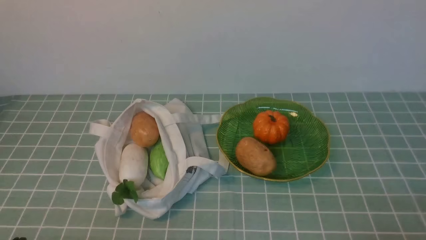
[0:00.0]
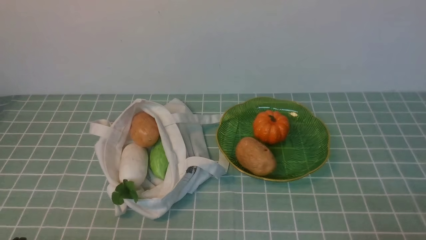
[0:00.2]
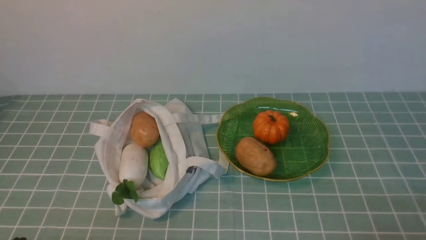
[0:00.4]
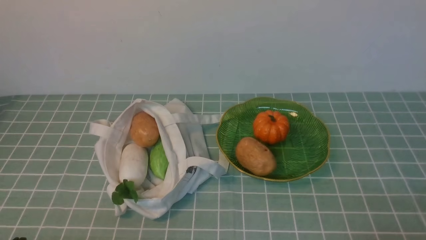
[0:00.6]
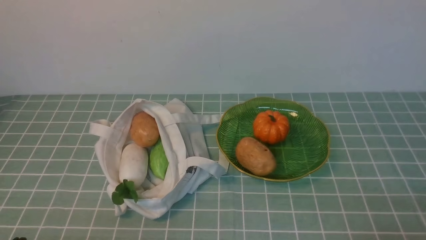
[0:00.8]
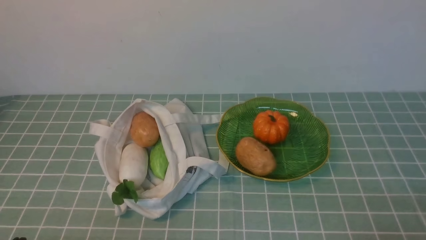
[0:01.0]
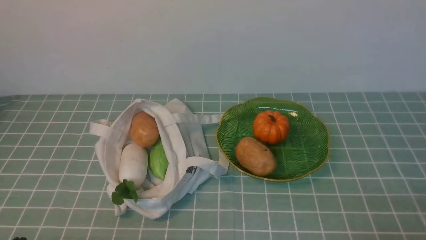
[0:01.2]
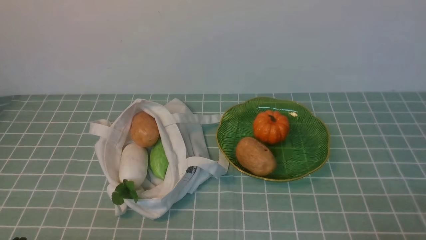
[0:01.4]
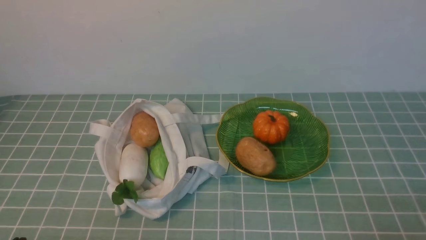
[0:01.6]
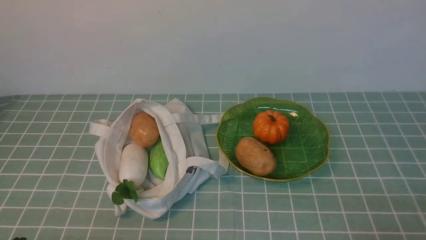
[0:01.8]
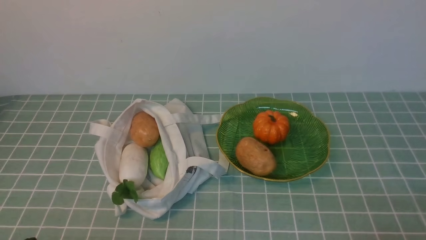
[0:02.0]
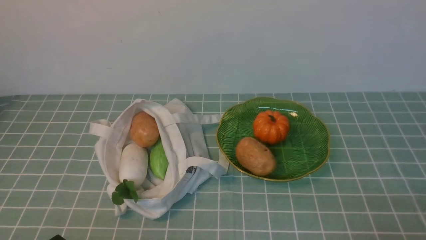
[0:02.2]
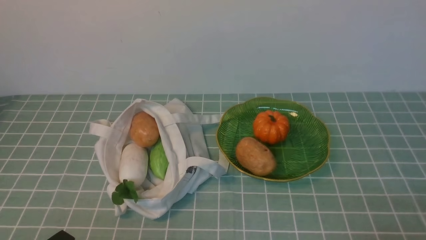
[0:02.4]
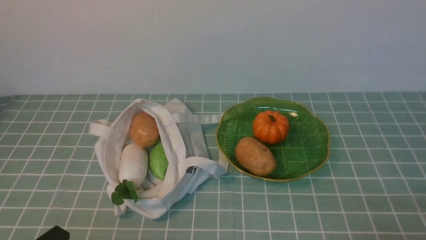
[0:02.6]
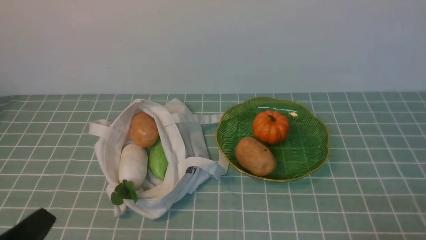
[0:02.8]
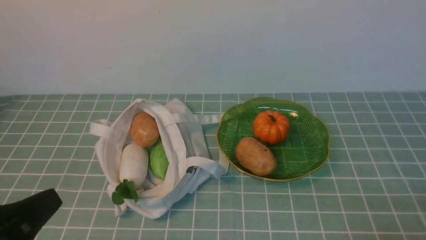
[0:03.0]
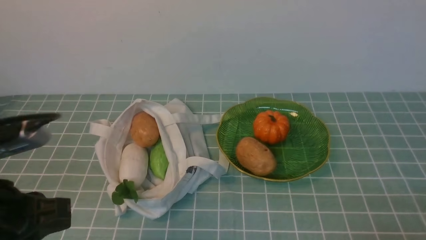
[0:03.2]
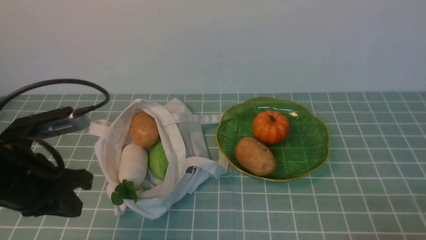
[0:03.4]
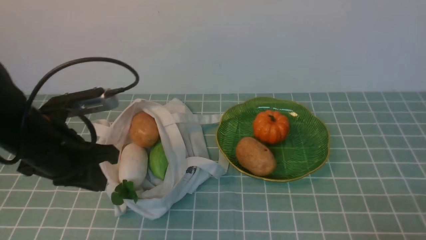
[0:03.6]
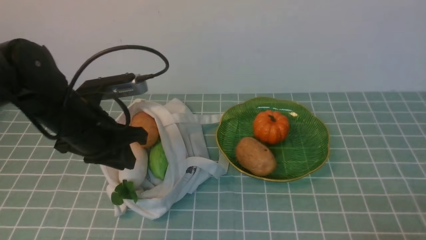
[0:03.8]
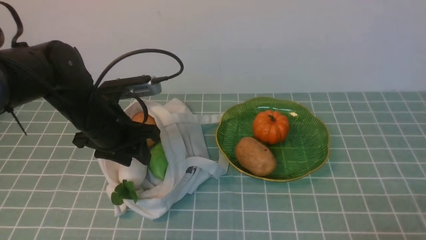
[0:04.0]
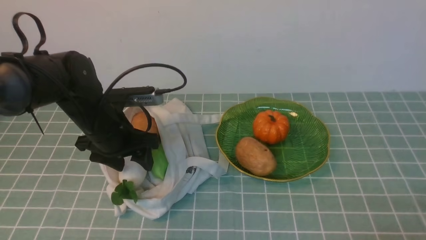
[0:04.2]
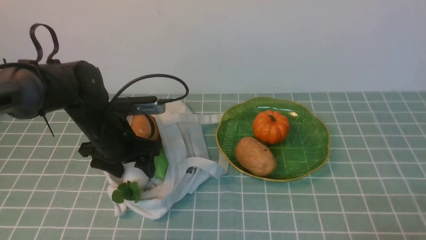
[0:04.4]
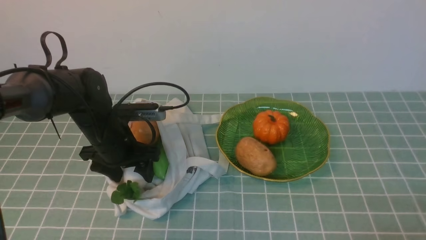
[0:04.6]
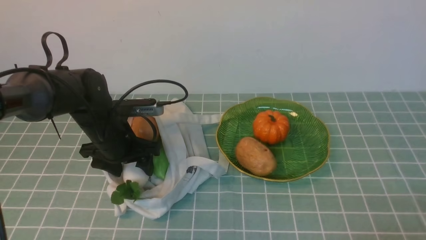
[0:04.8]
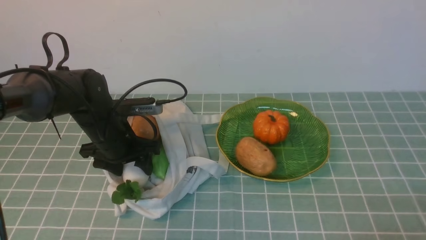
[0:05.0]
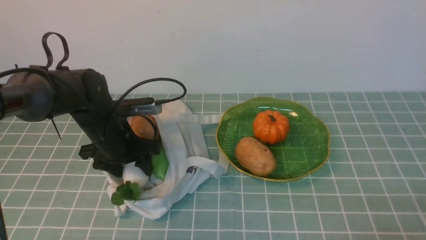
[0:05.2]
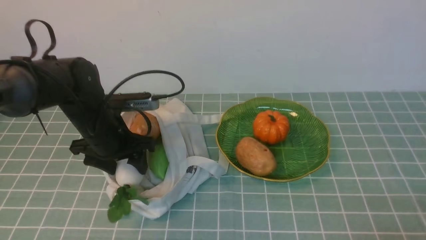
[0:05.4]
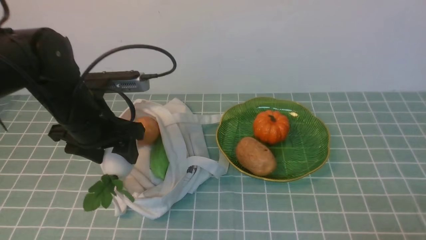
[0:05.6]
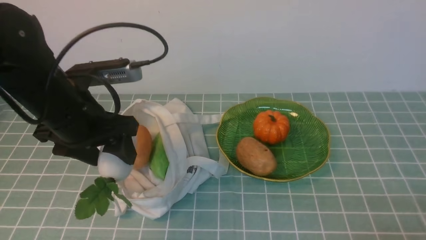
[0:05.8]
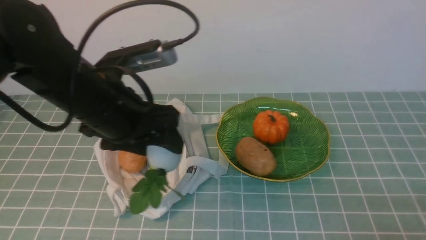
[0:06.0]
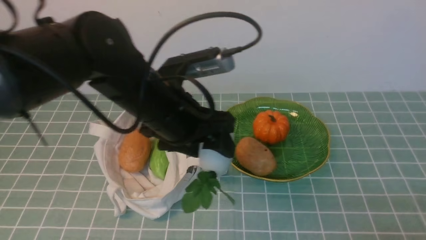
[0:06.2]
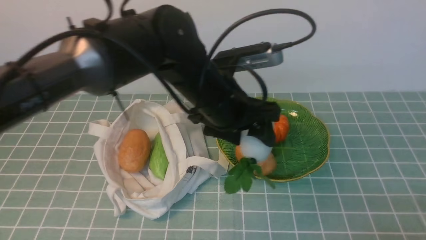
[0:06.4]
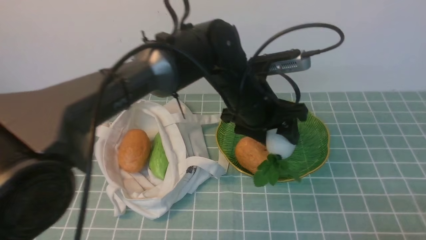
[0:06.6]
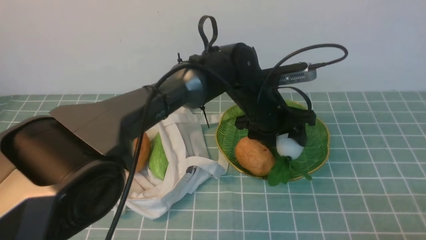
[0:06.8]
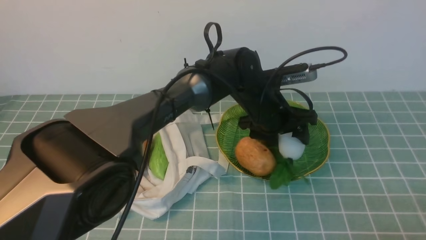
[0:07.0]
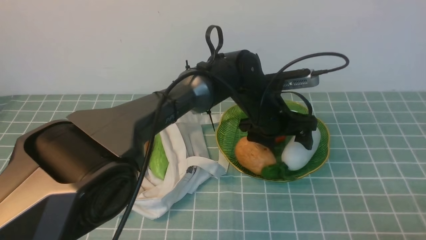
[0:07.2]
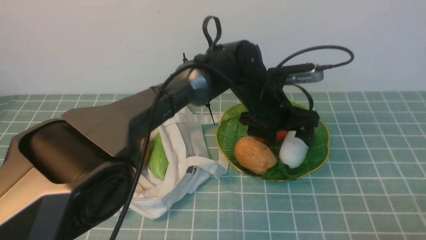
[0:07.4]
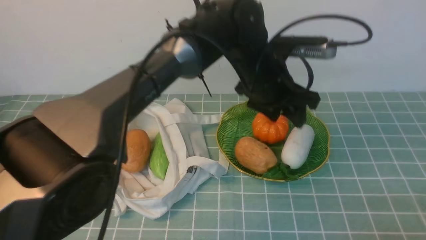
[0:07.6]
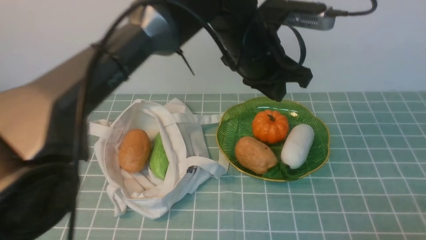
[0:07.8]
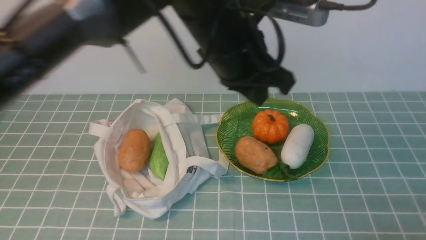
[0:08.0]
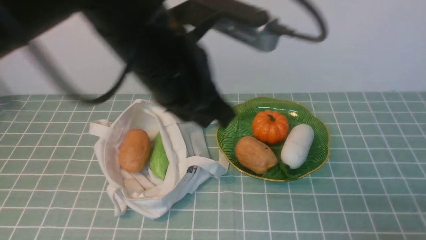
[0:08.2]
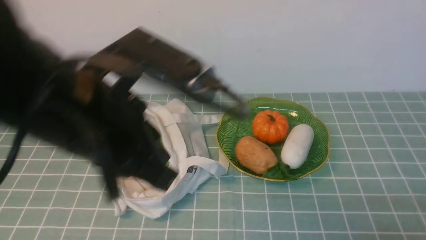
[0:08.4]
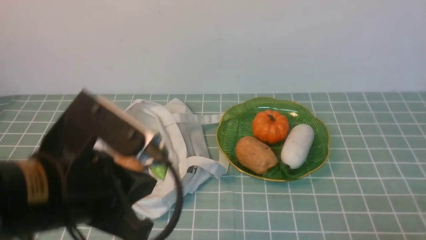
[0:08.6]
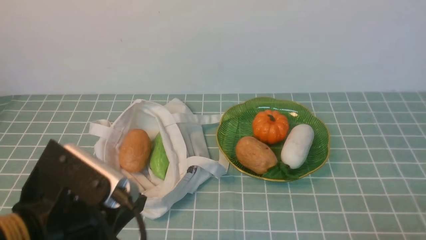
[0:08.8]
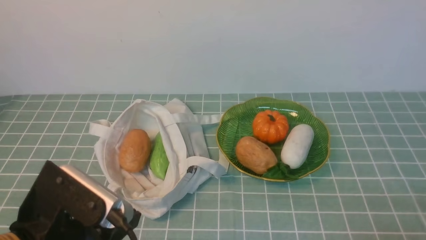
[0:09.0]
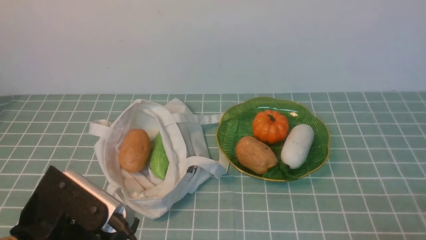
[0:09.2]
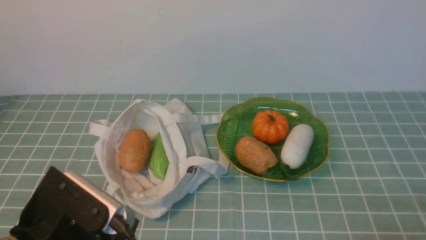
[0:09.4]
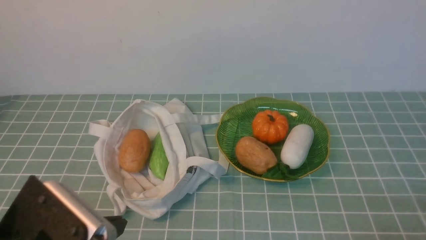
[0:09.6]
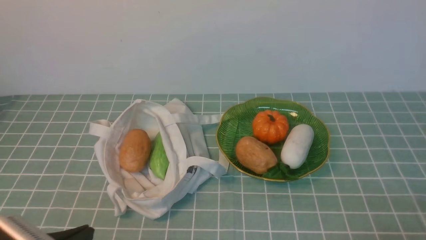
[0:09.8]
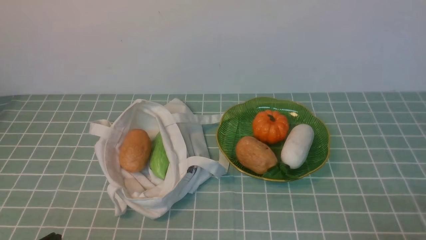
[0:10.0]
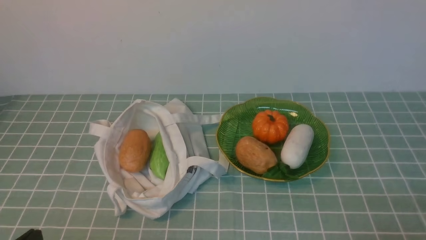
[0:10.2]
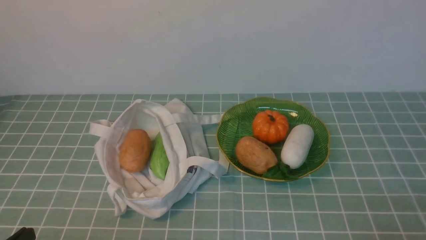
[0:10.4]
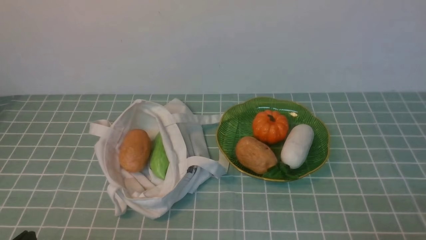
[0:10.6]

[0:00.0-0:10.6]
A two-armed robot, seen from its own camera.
Task of the whole recording: take vegetables from cloth bag on blue coffee tablecloth place on plate.
Step, 0:00.0 to 0:04.8: Grasp the radish with left gripper.
Step, 0:05.0 to 0:07.8: Place the radish on the plate with left gripper.
0:00.0 to 0:01.6: Neither gripper changes place.
0:01.6 to 0:03.0: The left gripper goes approximately 10 cm upward.
0:03.0 to 0:04.6: The left gripper shifts roughly 25 cm forward, and opens.
0:04.6 to 0:06.0: The left gripper goes about 15 cm upward, backward and to the right.
0:06.0 to 0:07.6: The left gripper goes about 20 cm to the right and forward.
0:07.6 to 0:09.0: The left gripper moves backward and to the left, some 35 cm, and closes.
0:09.0 to 0:10.6: The left gripper shifts approximately 15 cm to the left, downward and backward.

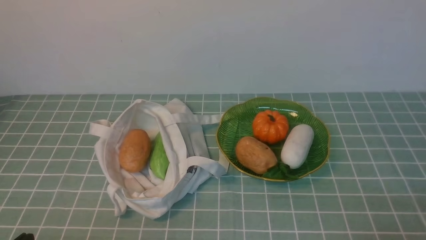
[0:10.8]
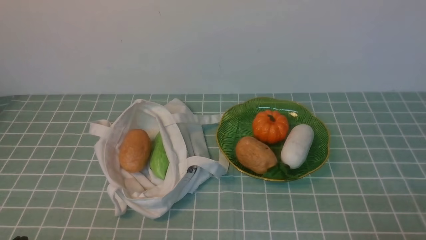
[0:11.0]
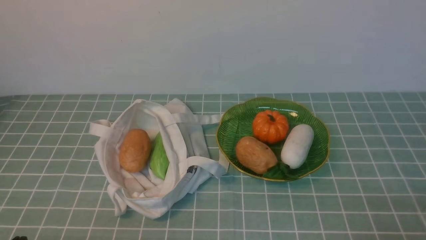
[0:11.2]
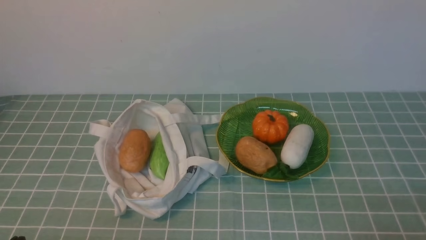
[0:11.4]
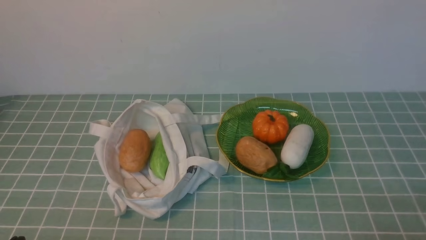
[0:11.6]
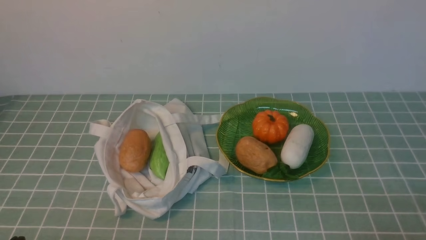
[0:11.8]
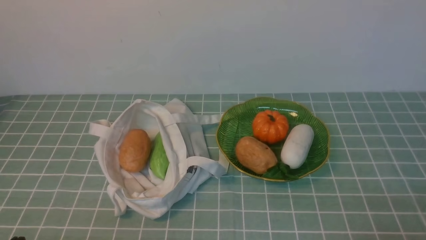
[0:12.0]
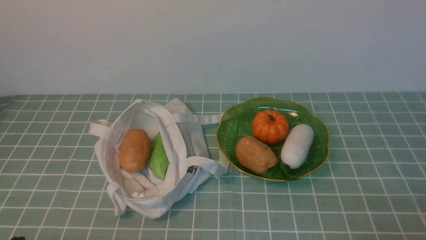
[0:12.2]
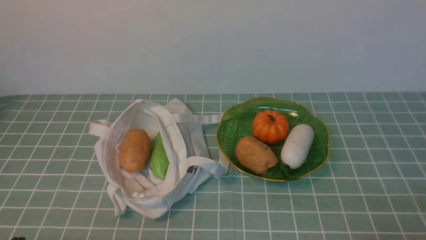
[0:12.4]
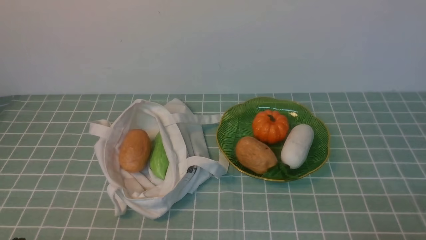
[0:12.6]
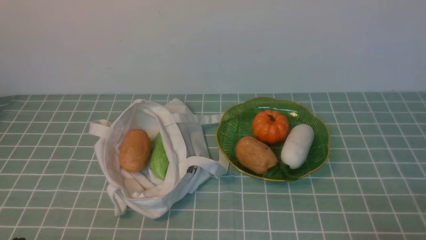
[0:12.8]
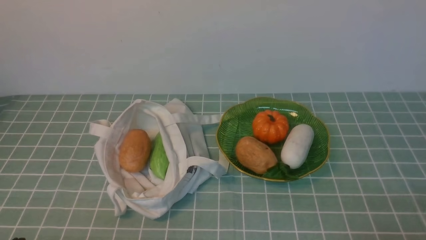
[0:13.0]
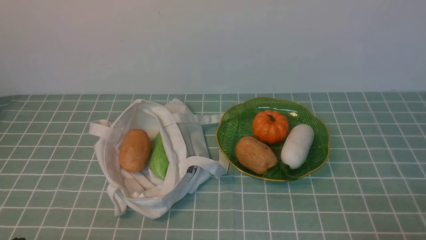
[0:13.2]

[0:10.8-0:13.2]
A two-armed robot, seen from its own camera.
Task of the whole recording: take vegetables from cloth bag on blue coffee tablecloth place on plate.
0:10.8 to 0:13.2: The two grippers keep their place.

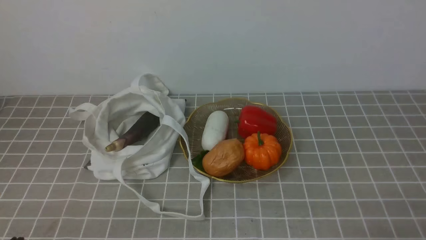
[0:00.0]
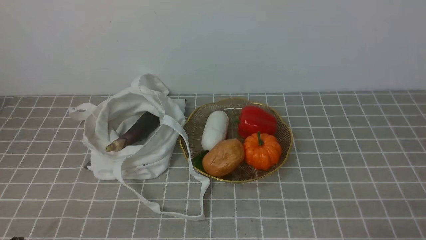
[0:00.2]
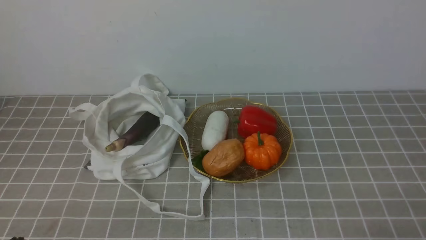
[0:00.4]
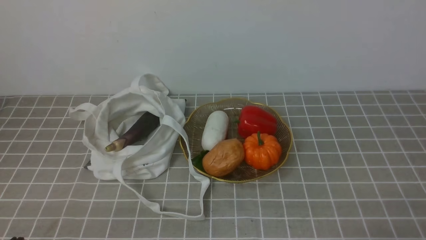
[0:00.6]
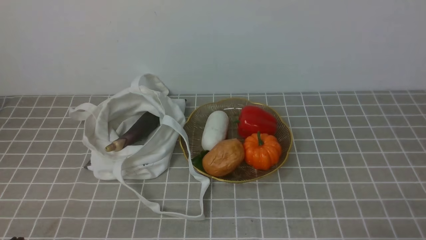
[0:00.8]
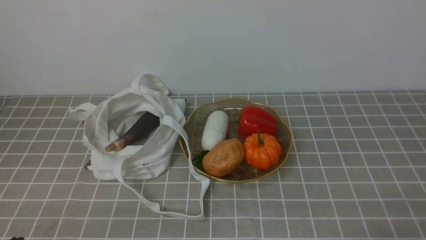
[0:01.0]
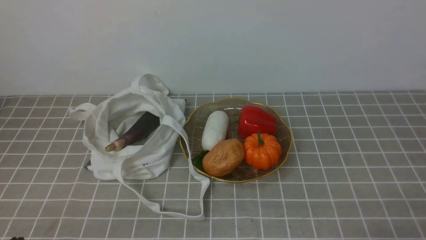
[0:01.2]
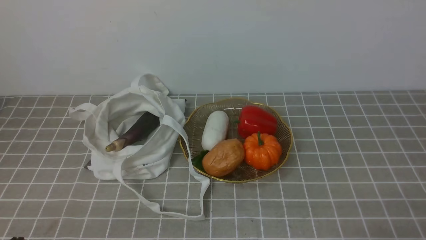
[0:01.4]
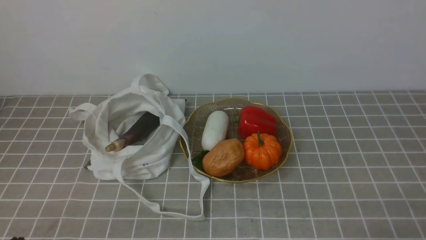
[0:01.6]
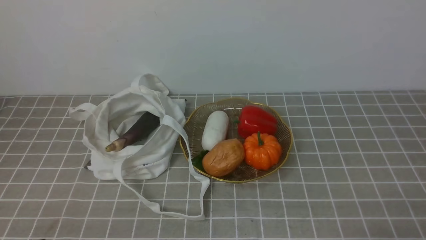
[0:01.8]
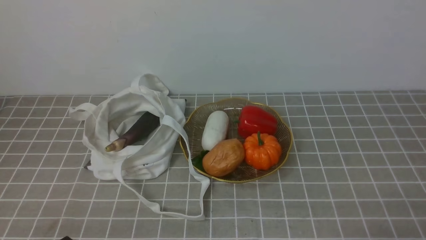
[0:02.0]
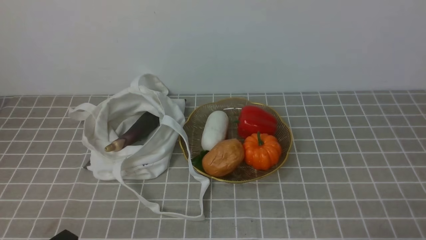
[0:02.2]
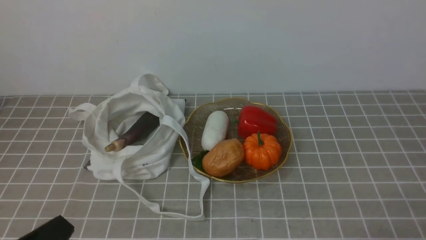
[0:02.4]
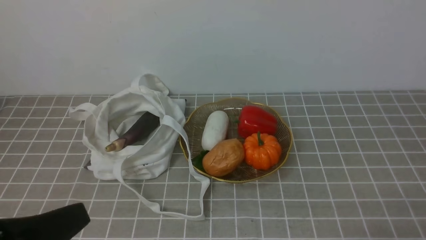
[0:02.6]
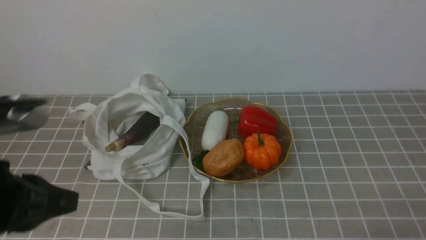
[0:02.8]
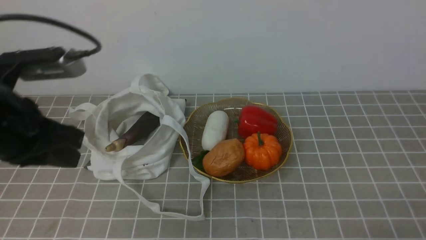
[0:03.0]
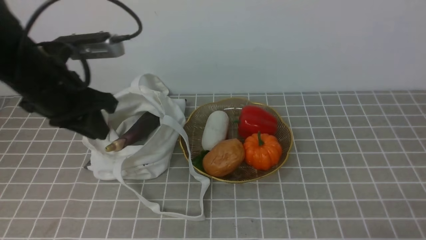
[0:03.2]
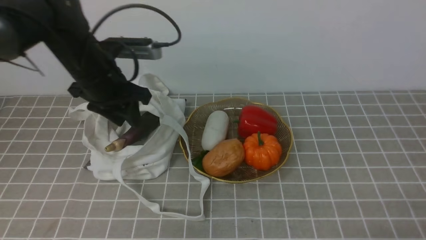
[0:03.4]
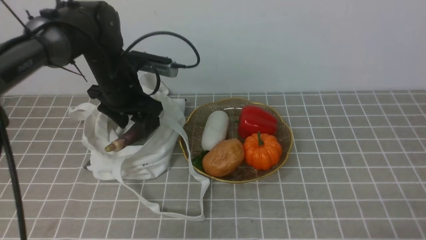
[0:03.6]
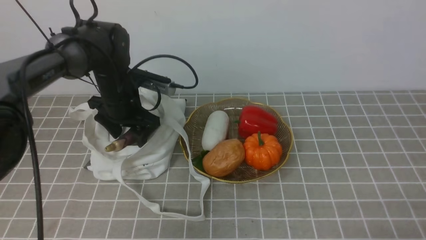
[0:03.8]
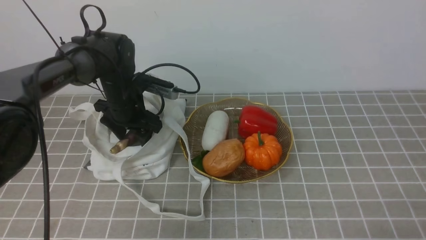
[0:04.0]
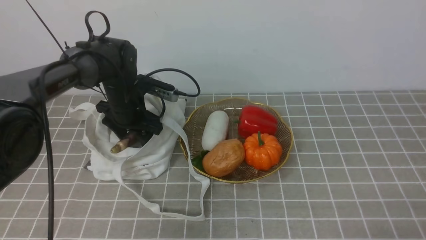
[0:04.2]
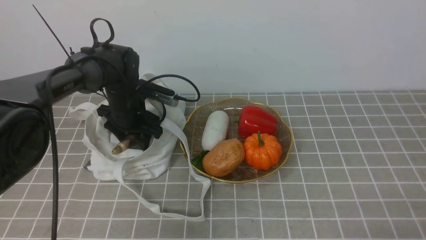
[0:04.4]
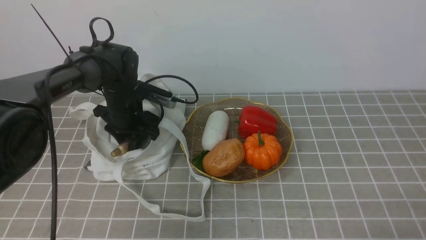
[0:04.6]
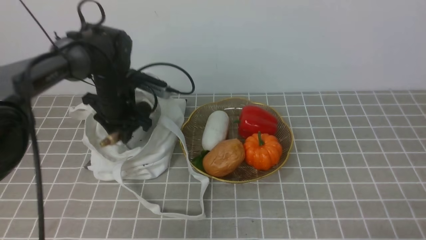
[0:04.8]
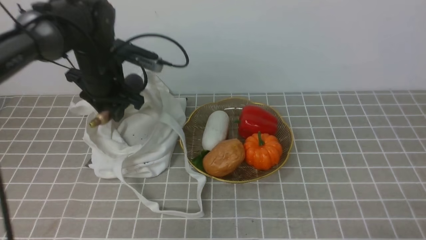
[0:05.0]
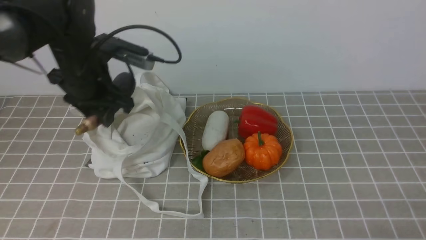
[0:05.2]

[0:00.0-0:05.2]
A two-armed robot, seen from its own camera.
Task of the whole recording: take vegetables from bag on grey coffee tablecloth place on plate.
Step, 0:00.0 to 0:04.4: Grasp the eggplant with left gripper.
0:01.8 to 0:03.4: The left gripper heads forward and upward, covering some 35 cm, and opens its fingers.
0:03.4 to 0:05.2: The left gripper goes downward and returns, roughly 15 cm each way, and opens, then closes once more.
